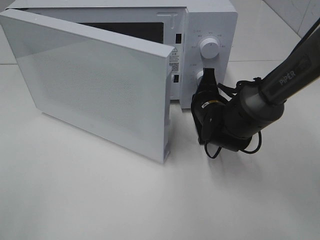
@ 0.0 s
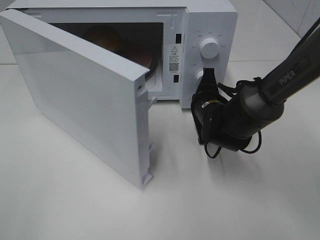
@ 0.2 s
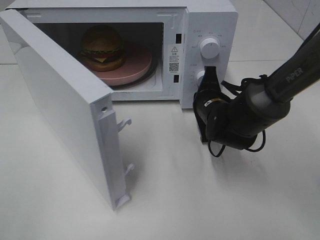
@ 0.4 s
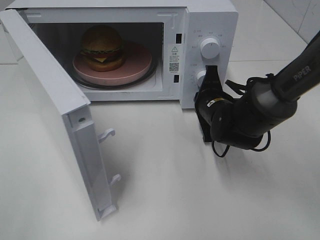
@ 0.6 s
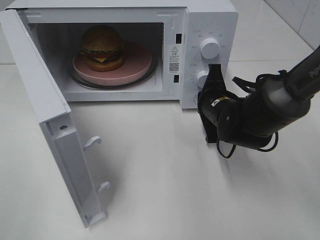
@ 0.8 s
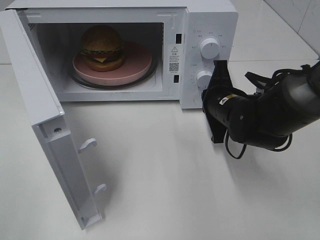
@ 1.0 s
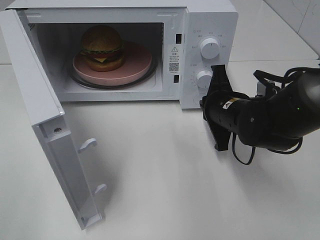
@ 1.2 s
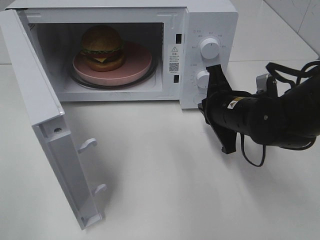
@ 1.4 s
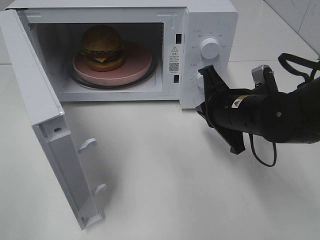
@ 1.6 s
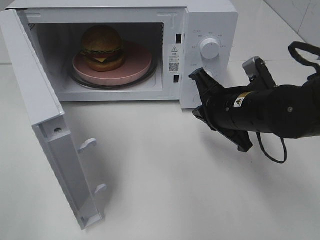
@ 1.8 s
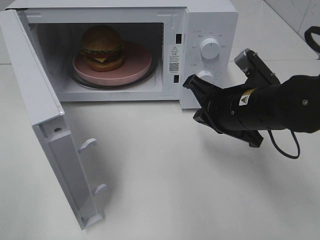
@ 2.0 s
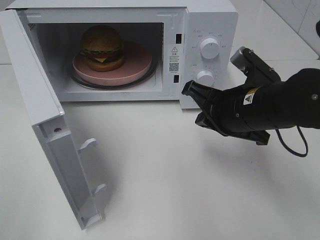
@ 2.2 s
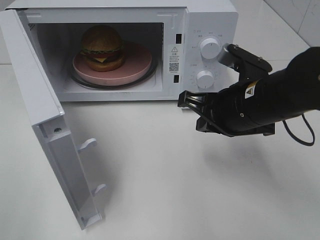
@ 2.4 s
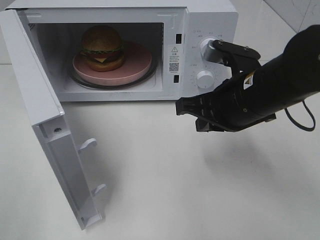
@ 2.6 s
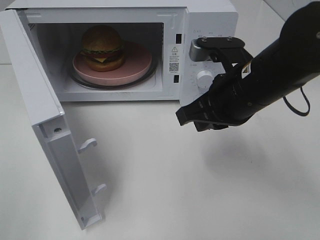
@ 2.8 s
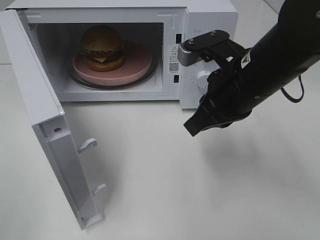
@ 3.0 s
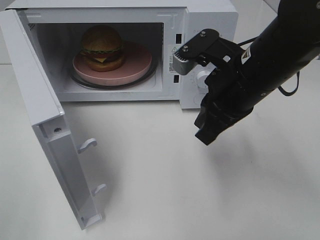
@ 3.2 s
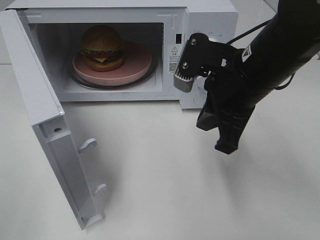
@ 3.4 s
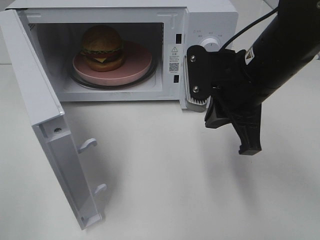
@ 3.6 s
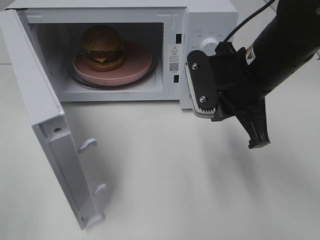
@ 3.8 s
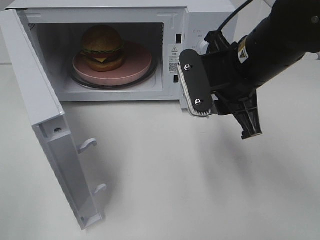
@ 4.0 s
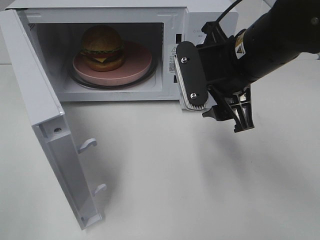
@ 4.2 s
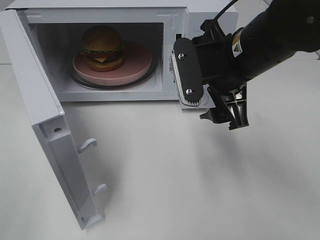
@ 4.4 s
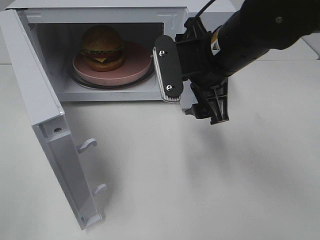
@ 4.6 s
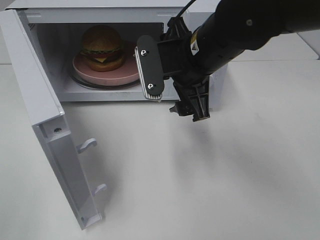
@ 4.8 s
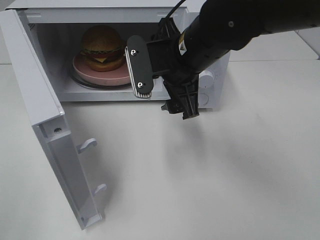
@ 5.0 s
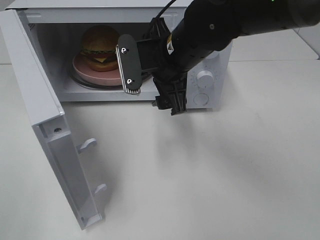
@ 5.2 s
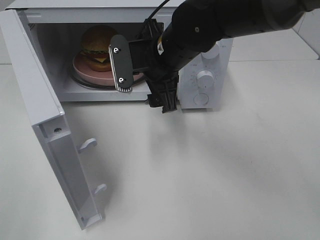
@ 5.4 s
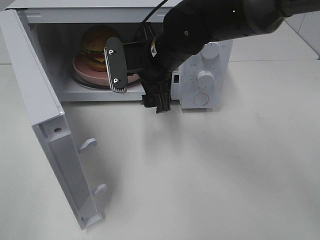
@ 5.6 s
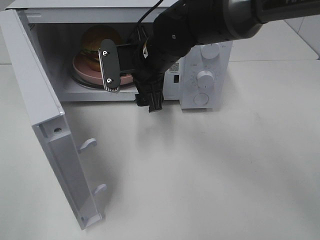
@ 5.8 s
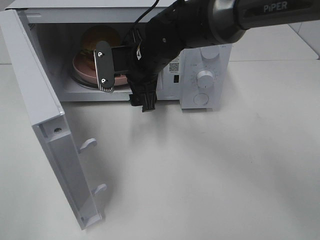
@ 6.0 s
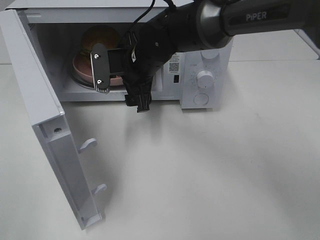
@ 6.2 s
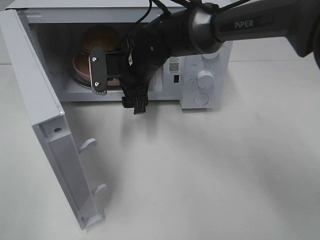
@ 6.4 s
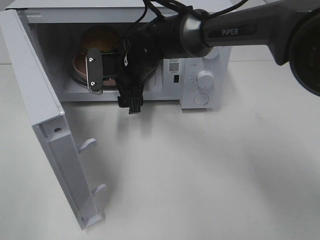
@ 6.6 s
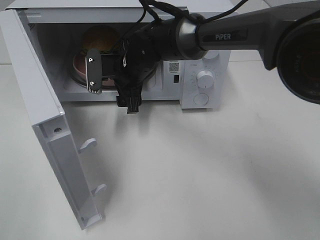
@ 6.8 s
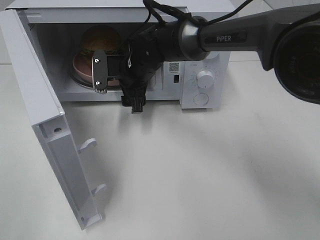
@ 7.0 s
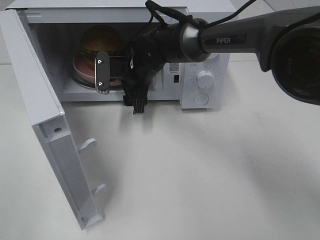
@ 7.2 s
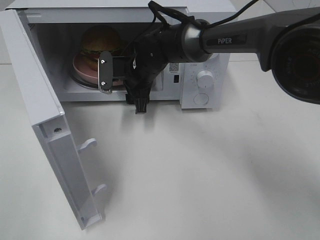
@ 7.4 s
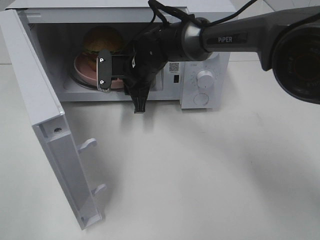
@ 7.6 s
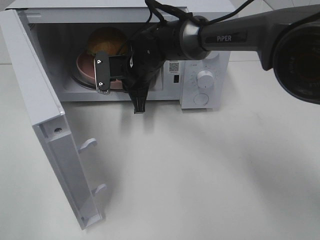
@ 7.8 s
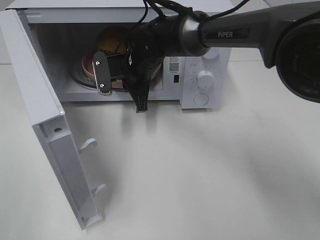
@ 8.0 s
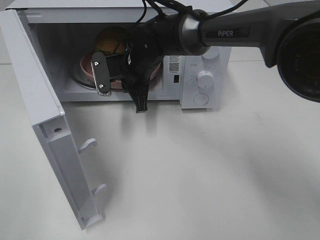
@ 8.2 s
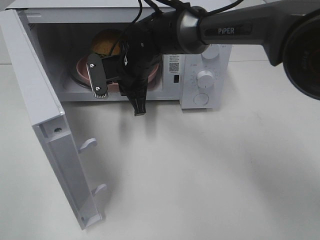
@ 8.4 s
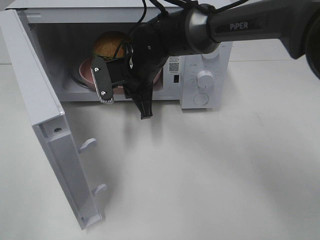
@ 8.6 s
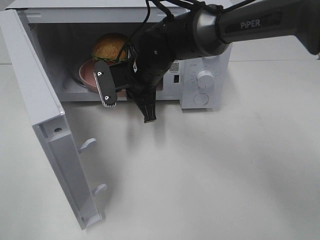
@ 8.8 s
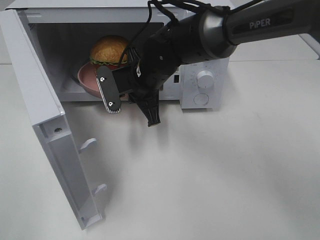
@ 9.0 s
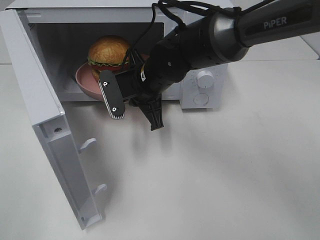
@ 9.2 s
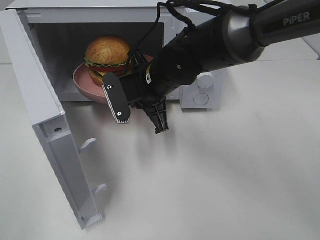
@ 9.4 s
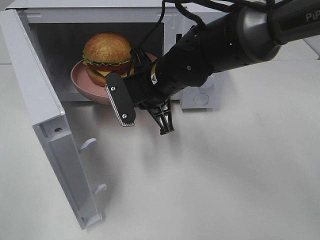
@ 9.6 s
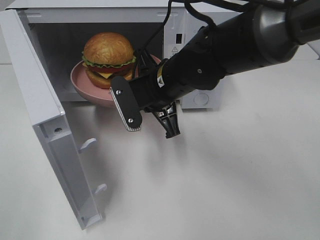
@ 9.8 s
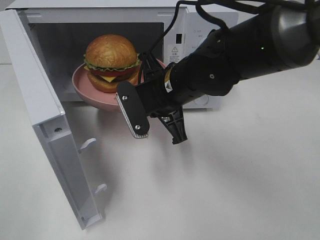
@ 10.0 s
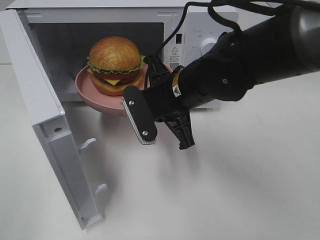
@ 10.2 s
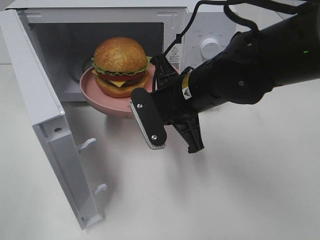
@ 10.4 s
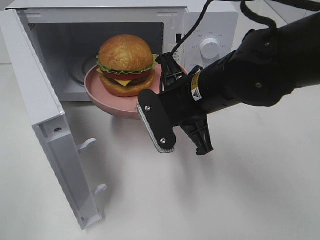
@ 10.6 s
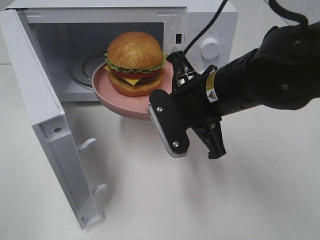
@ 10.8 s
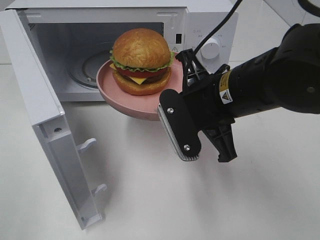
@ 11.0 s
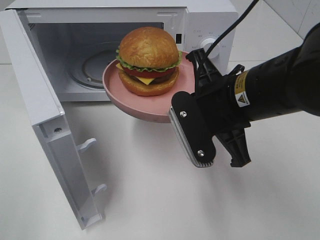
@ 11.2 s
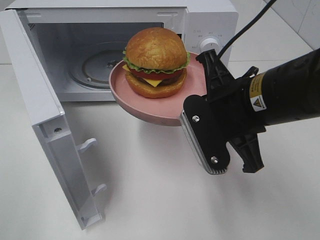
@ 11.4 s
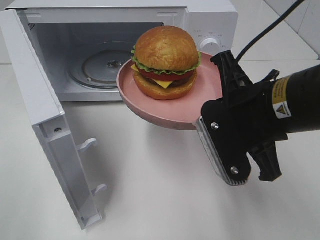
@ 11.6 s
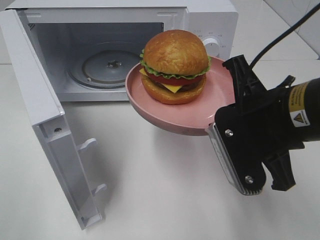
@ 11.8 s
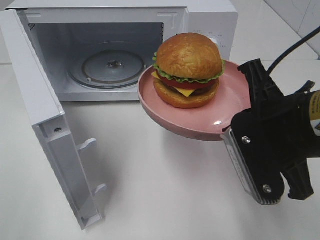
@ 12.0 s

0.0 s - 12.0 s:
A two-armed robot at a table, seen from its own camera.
Task of the whole recording: Heat the burger.
Step, 1.2 s - 7.8 s: Right hand: grab the plate with the hamburger.
0.0 s - 1.6 s: The right gripper shifts approximately 10 cm backward and upward.
1.6 s - 3.0 s: The right gripper moves upward, about 10 cm.
3.0 s - 4.4 s: The right gripper opens its fingers.
4.4 s - 6.0 s: The right gripper heads to the left, forward and downward, covering approximately 15 cm.
6.0 s - 7.6 s: The right gripper travels forward and downward by about 10 cm, and closes its fingers.
7.6 s - 9.0 s: The right gripper travels backward by approximately 5 cm.
9.0 s - 10.4 s: The right gripper goes roughly 10 cm backward and to the right.
10.4 s - 12.0 s: The right gripper goes roughly 15 cm backward and to the right.

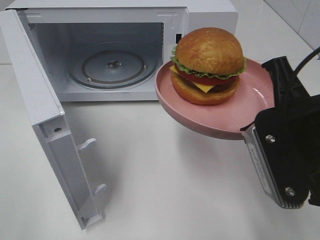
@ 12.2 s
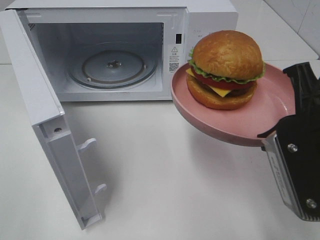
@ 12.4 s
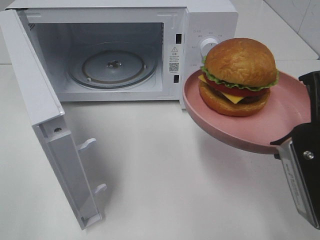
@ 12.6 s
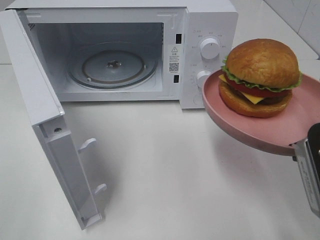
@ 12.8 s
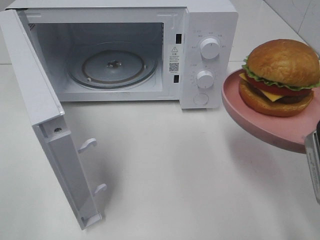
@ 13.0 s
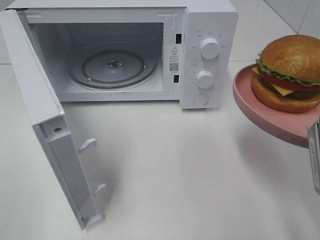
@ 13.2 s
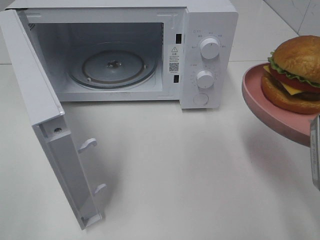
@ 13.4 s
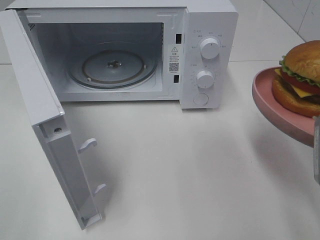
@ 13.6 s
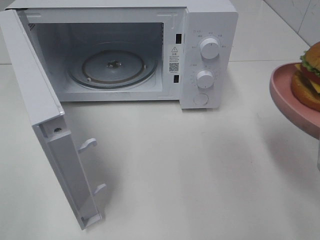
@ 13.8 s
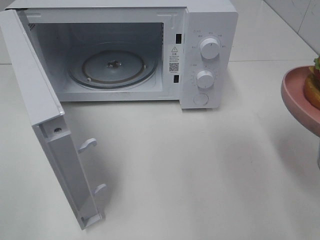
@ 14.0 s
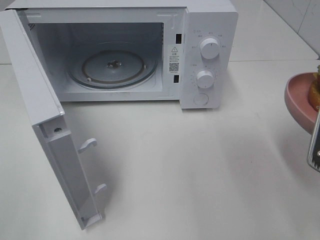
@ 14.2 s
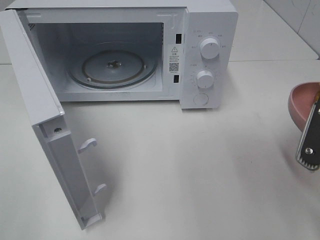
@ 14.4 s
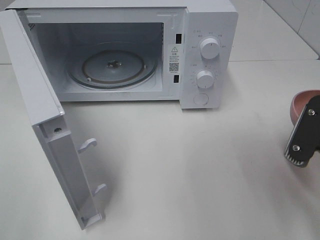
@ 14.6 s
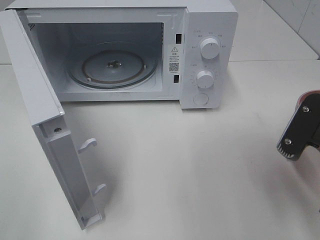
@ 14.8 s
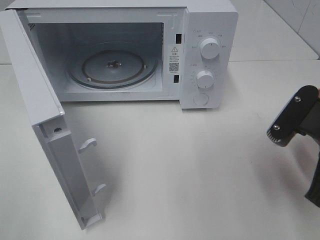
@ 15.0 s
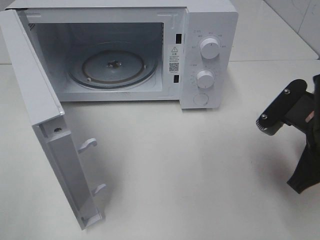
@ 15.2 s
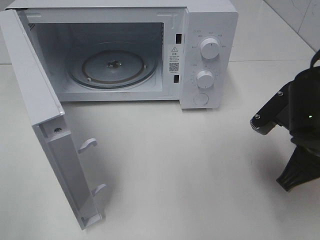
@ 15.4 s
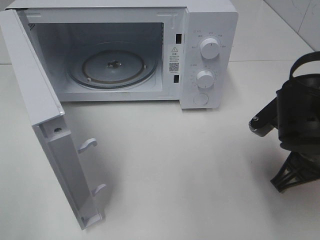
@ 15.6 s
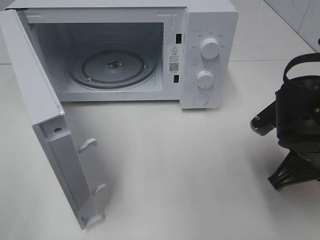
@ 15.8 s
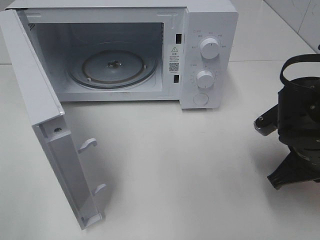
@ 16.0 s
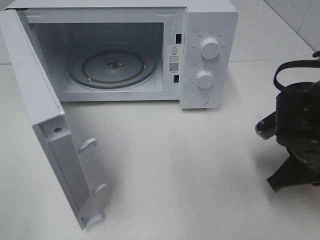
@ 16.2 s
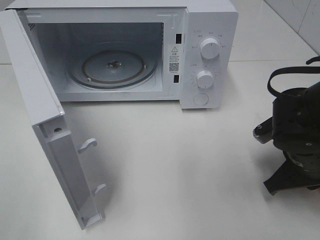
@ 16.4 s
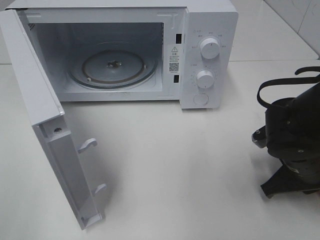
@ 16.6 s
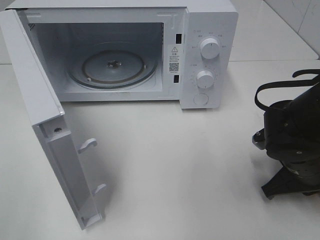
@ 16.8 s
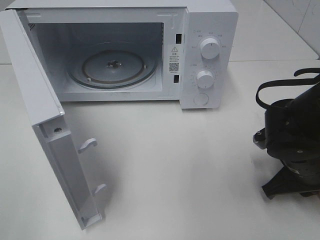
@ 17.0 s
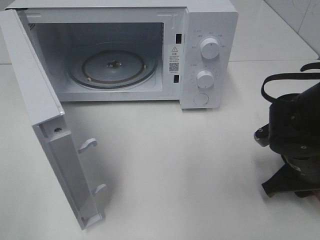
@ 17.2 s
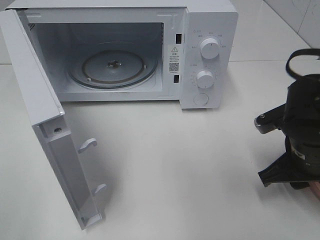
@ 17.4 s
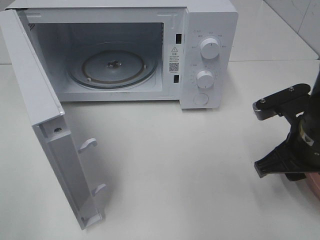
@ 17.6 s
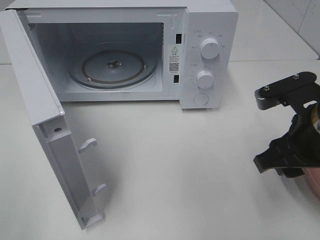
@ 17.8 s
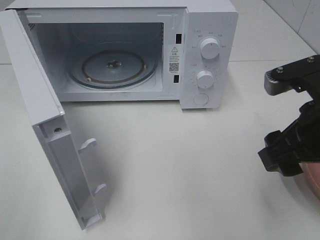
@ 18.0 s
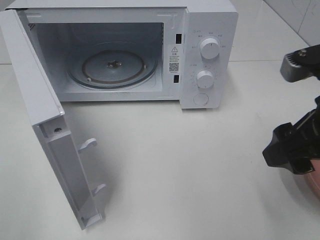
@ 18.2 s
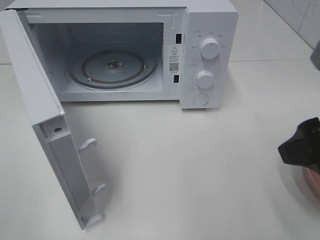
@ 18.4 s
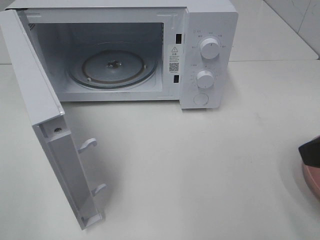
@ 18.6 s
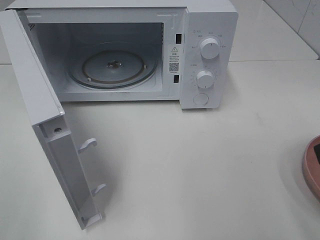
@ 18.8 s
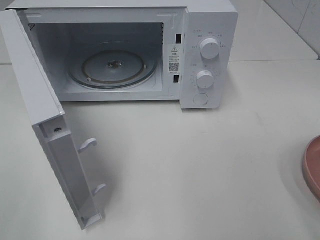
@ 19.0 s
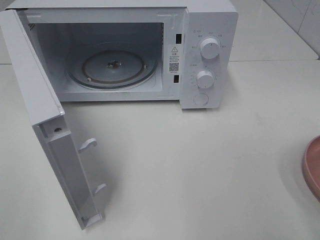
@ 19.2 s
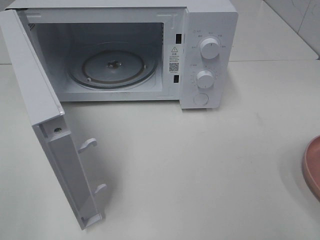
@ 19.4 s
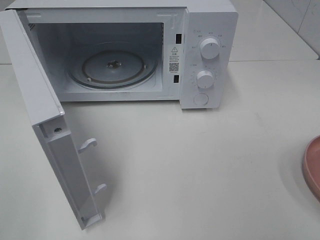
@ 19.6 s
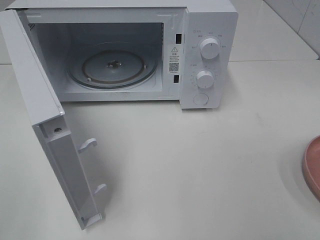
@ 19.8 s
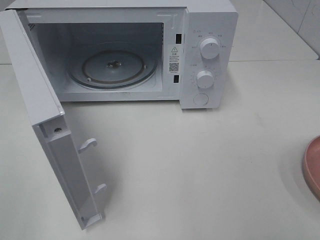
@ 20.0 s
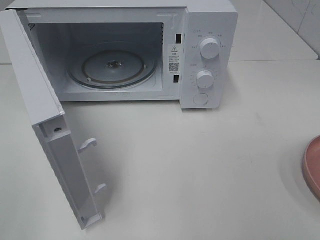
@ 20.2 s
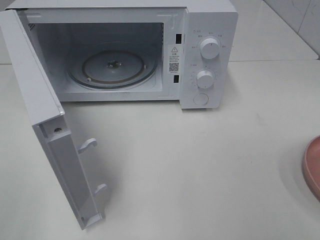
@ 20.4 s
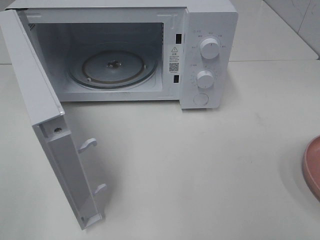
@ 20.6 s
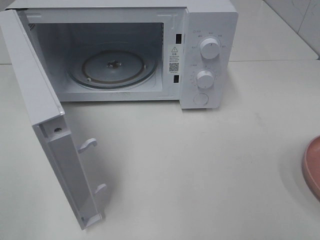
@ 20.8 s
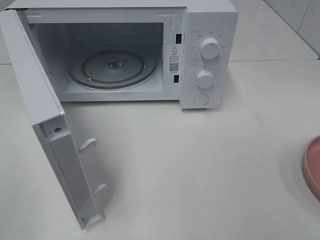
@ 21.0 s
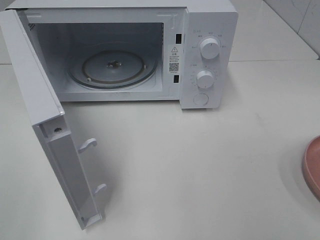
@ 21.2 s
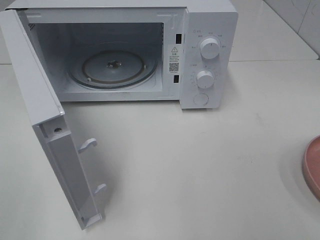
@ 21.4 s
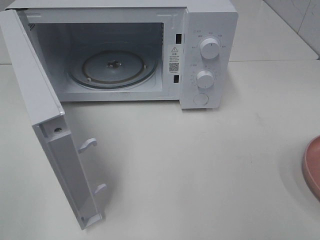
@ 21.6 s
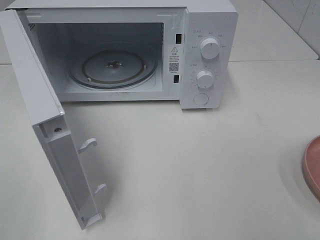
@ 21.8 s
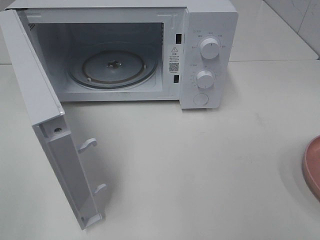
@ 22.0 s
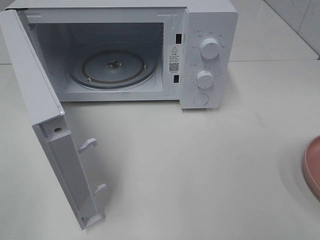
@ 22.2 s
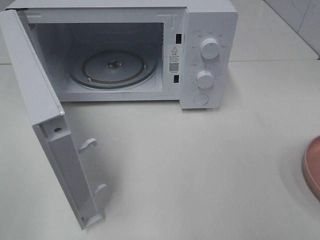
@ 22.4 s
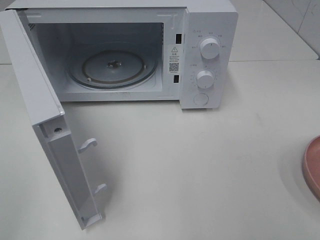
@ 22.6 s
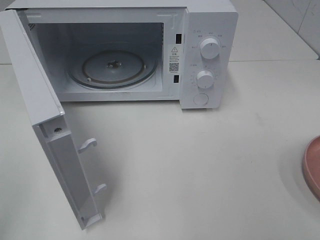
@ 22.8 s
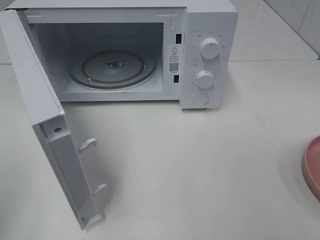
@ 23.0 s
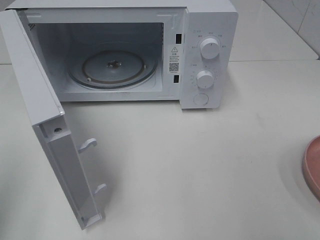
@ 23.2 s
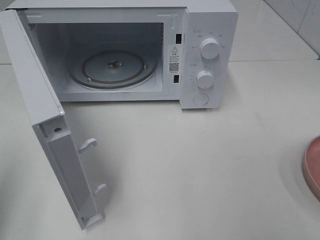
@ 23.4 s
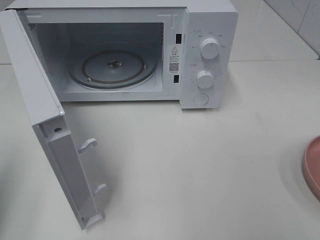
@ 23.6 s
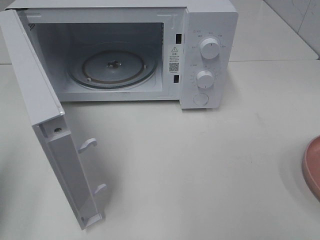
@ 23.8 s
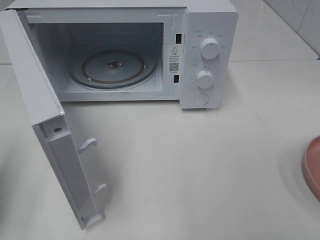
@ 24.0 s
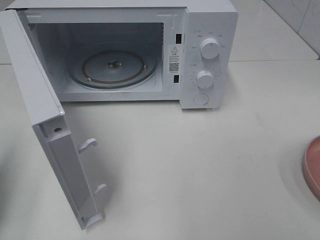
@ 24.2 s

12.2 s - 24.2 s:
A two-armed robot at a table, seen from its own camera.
Task of the whole recording: Heat the burger.
Step, 12.2 s - 17.4 s: Right hand: place the plate on the table.
12.2 s - 13.8 s: The right gripper travels to the right by some 5 cm.
13.8 s - 15.2 s: The right gripper is displaced forward and downward by approximately 10 cm.
15.2 s - 16.6 s: The right gripper moves downward, roughly 10 cm.
16.6 s - 18.2 s: The right gripper travels upward and backward by about 20 cm, and opens up.
18.2 s - 19.8 s: The right gripper heads backward and to the right, covering some 15 cm.
22.6 s - 24.2 s: The left gripper is displaced forward by about 15 cm, and closes its fingers.
